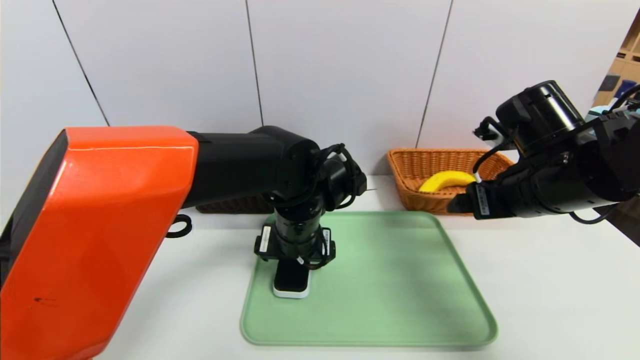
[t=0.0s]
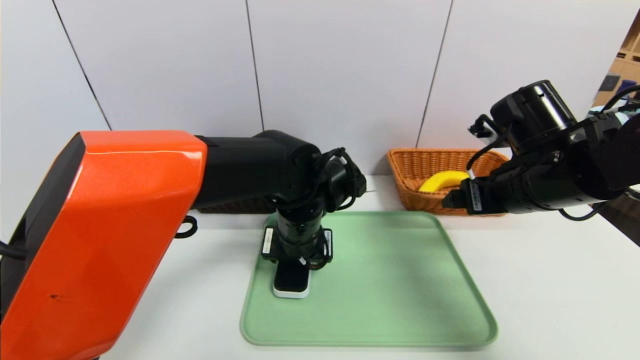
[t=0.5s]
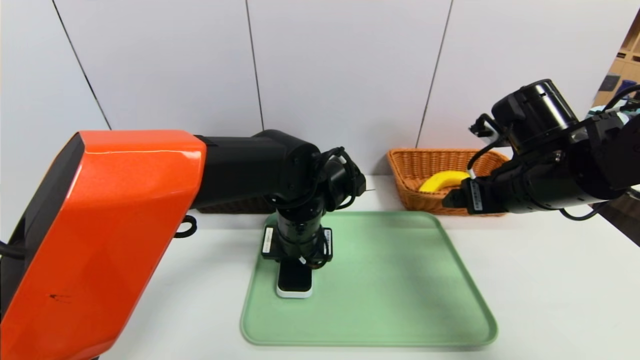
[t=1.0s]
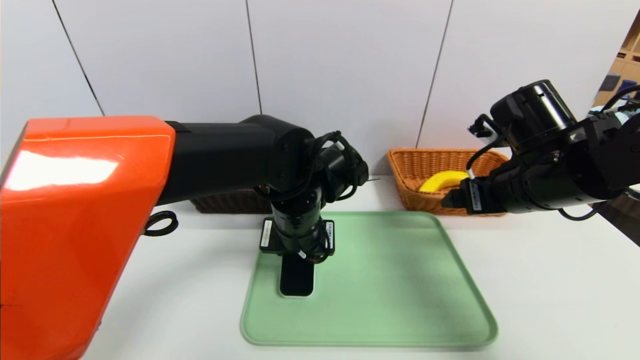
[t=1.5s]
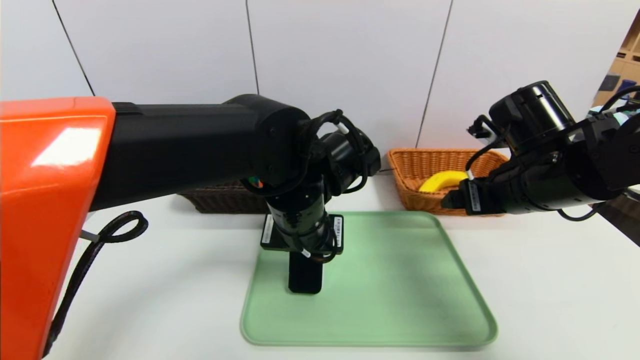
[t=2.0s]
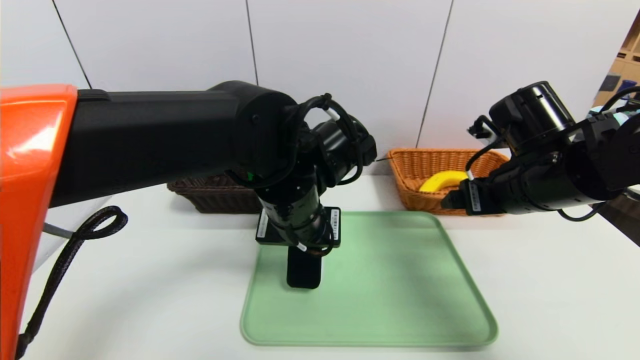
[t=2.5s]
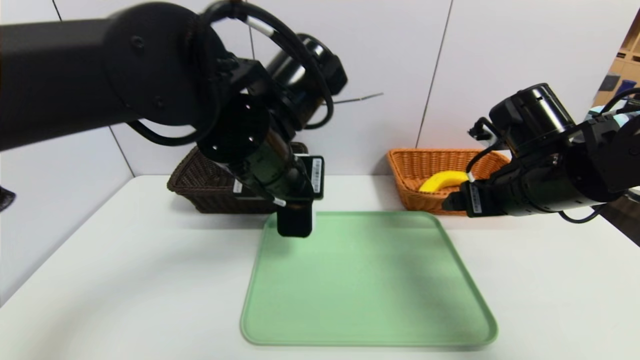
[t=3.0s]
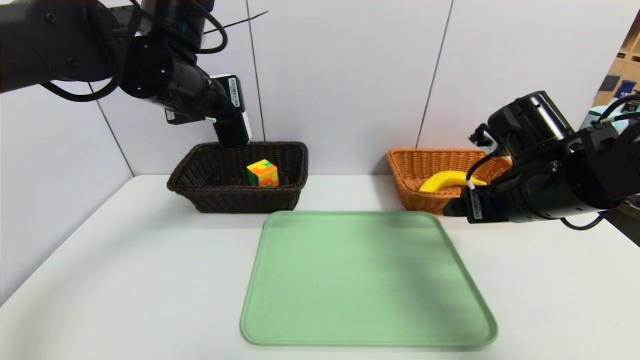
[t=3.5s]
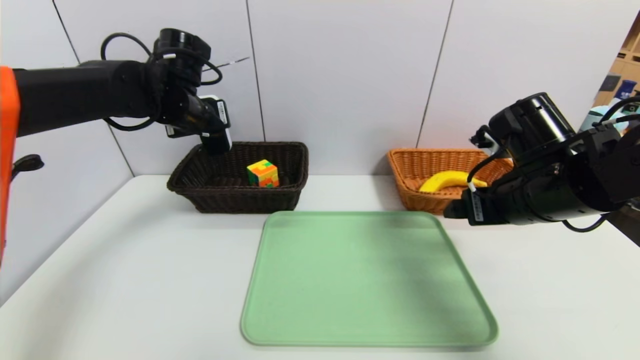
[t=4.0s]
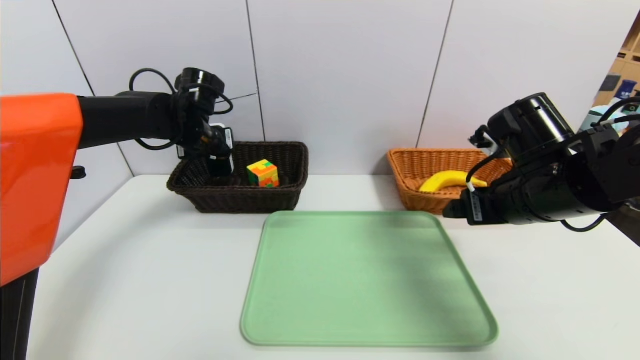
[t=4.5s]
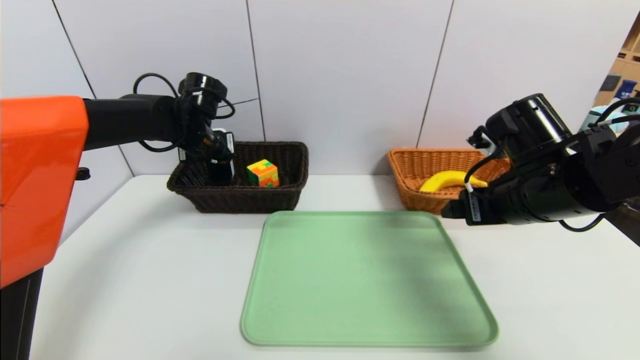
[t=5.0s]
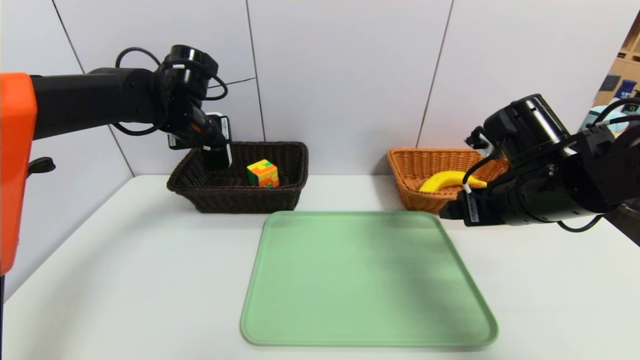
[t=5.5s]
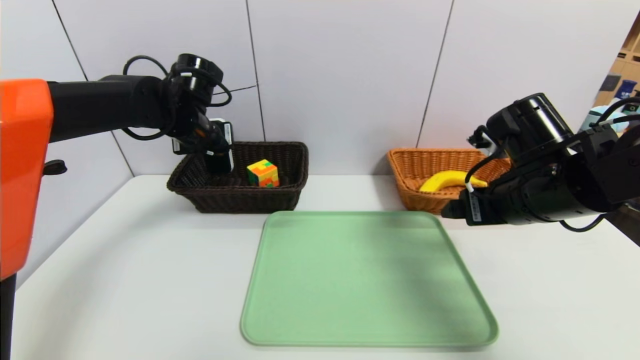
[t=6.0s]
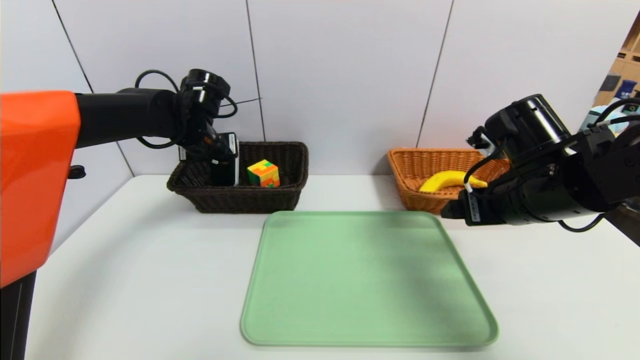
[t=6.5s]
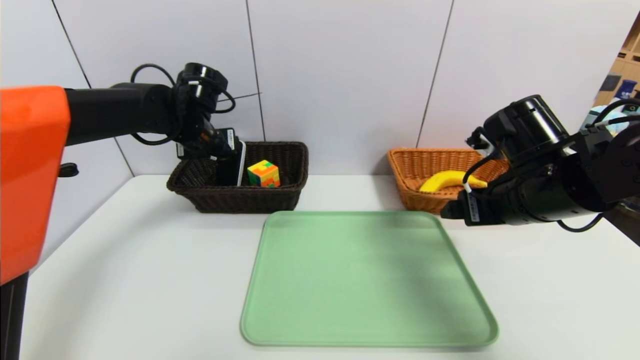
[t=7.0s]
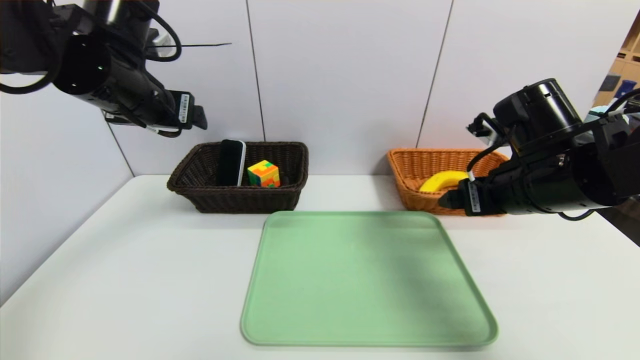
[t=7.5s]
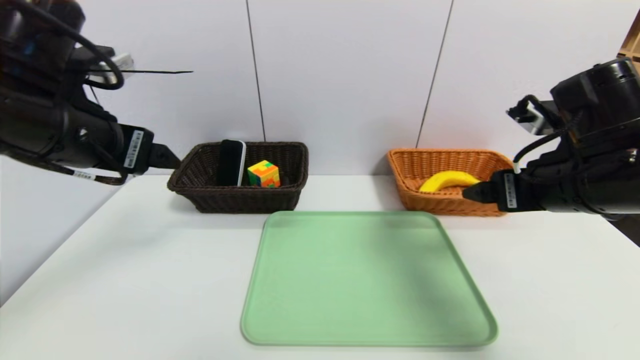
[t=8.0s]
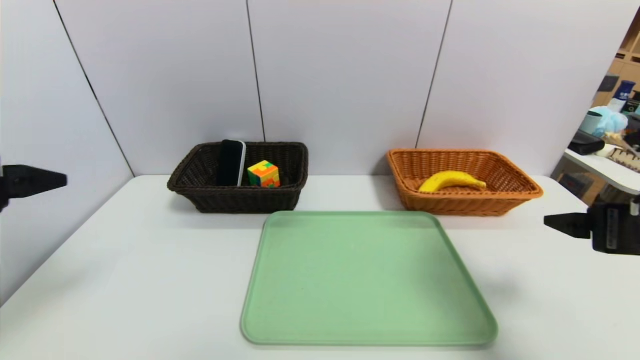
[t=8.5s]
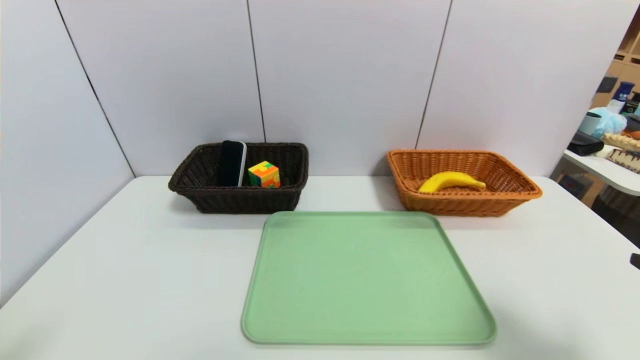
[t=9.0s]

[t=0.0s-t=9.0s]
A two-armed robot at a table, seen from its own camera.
Task of the whole recording: place the food in the right basket with the right gripper, and place the non food items in the left basket with the left gripper.
Step, t=0.0s to t=7.0s: Grasp the white eraser and put it in the left basket.
t=0.0s to t=2.0s: The left gripper ends up roughly 5 cm from where it was, and closes.
t=2.0s to t=4.5s: The left gripper goes some 25 cm to the left and forward.
t=4.5s to t=7.0s: The left gripper opens up.
t=7.0s to t=9.0s: The right gripper goes roughly 20 cm backward and to the right. The left gripper is displaced backward by approximately 40 cm.
